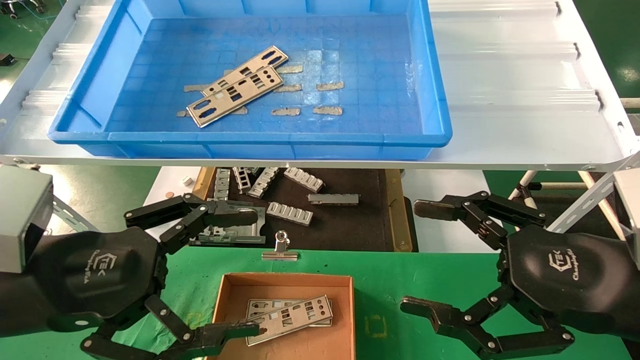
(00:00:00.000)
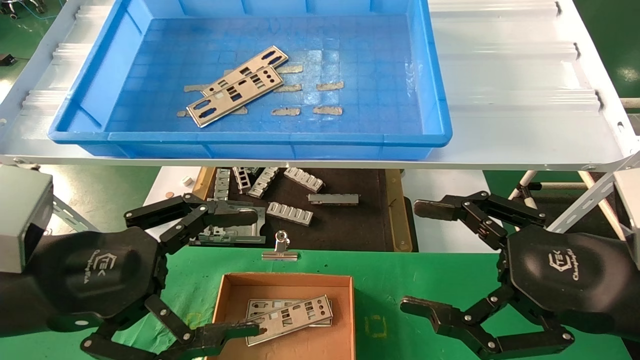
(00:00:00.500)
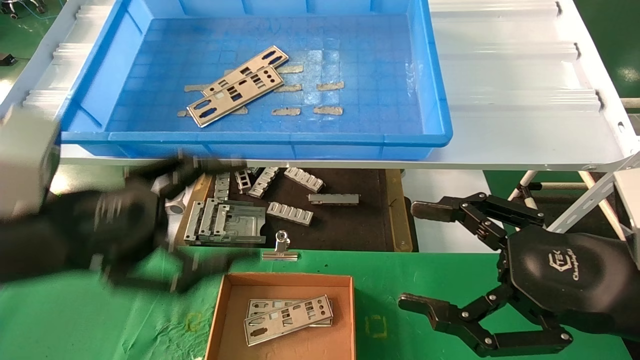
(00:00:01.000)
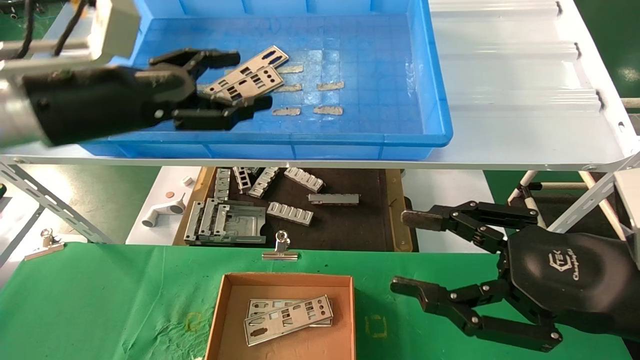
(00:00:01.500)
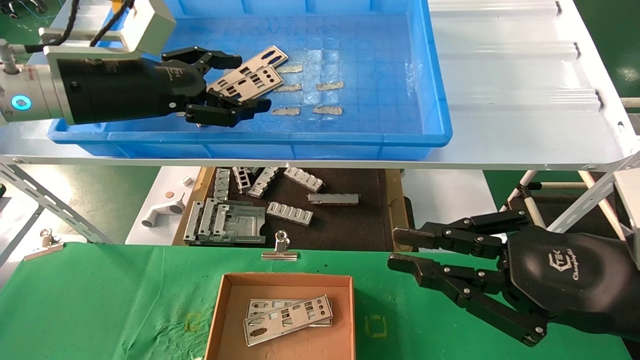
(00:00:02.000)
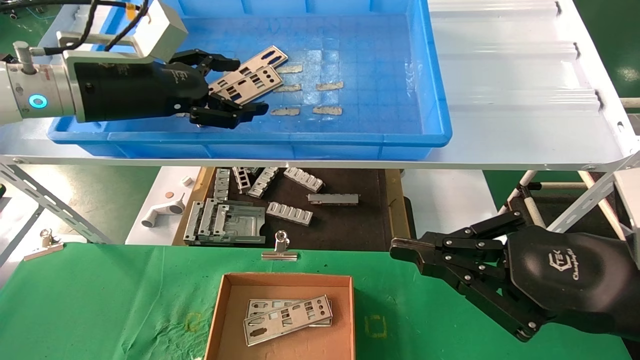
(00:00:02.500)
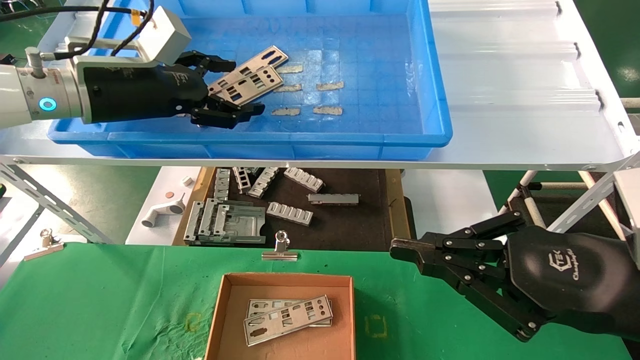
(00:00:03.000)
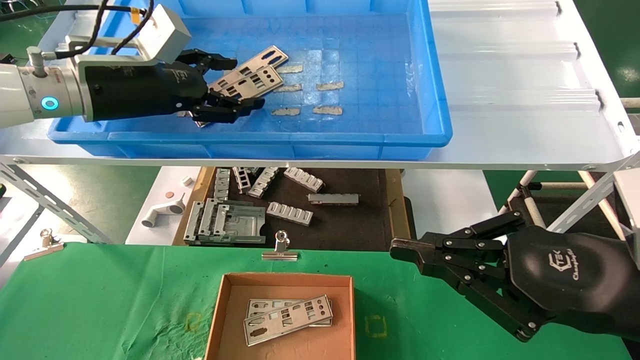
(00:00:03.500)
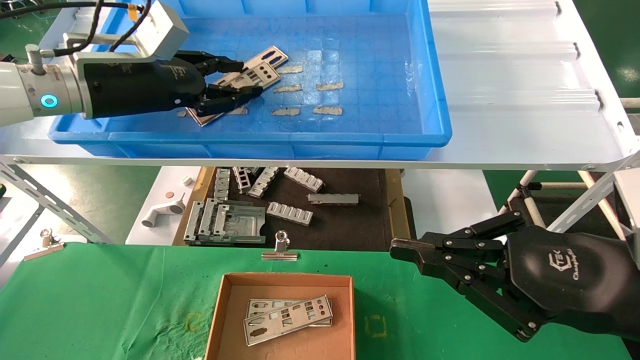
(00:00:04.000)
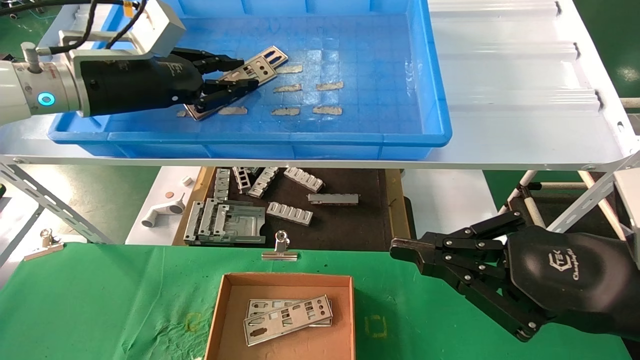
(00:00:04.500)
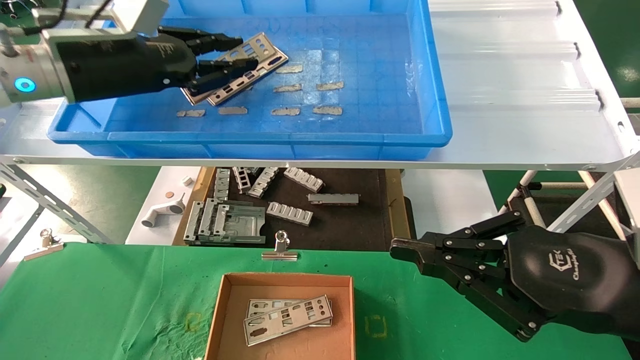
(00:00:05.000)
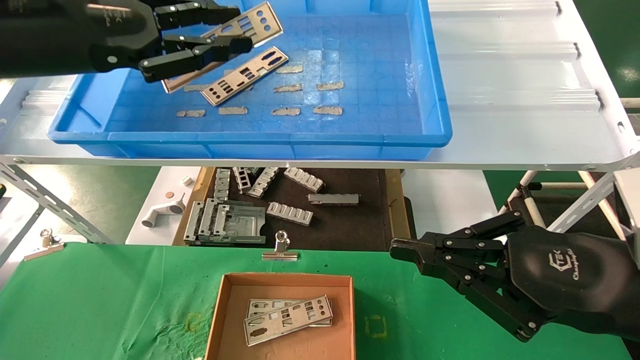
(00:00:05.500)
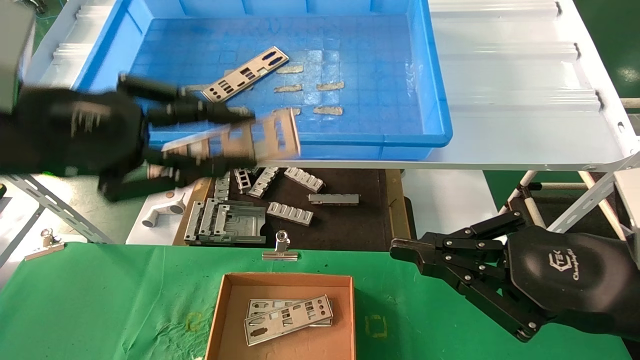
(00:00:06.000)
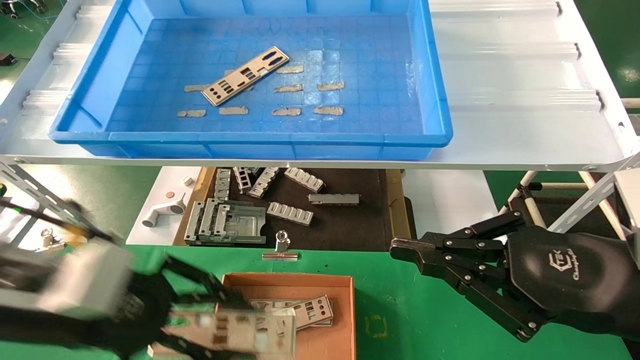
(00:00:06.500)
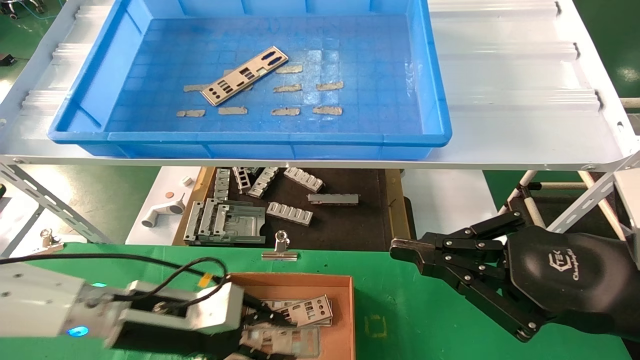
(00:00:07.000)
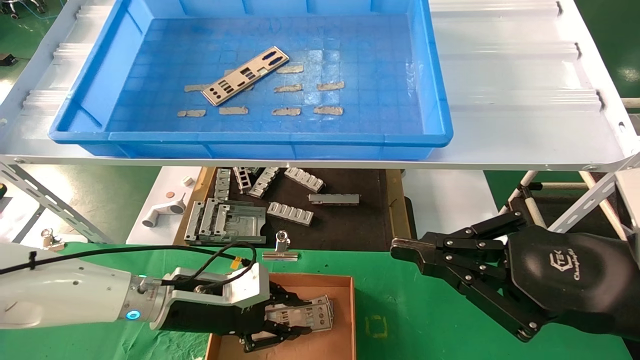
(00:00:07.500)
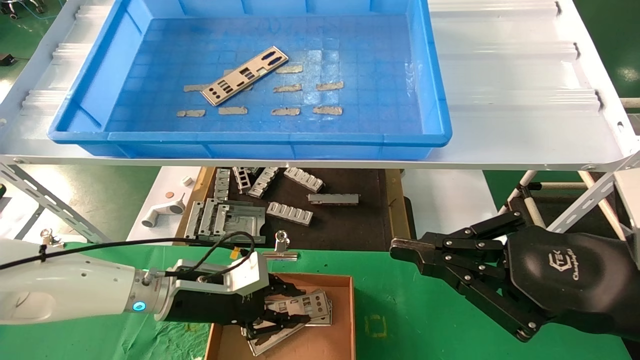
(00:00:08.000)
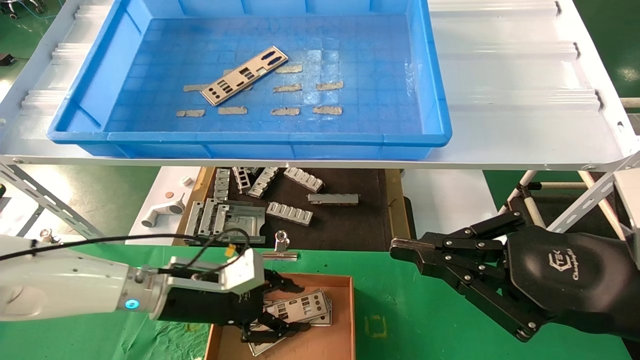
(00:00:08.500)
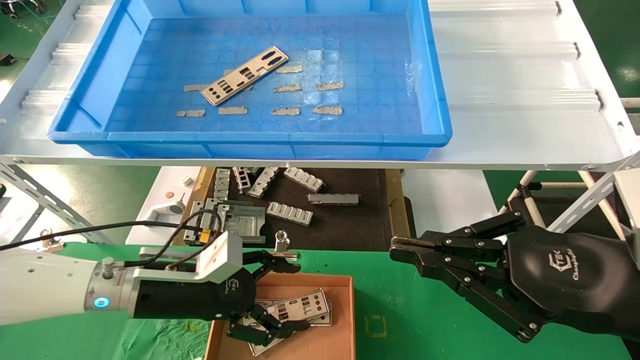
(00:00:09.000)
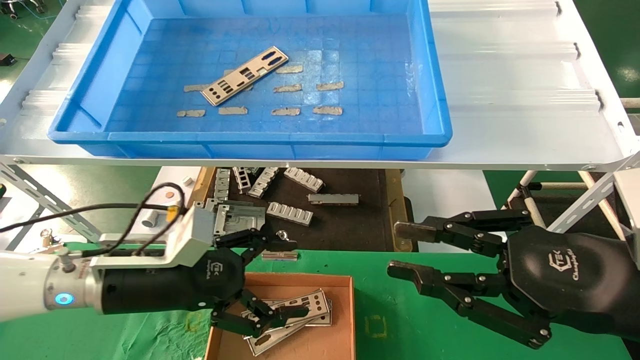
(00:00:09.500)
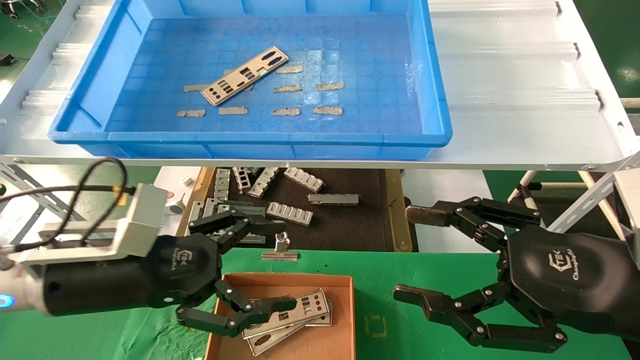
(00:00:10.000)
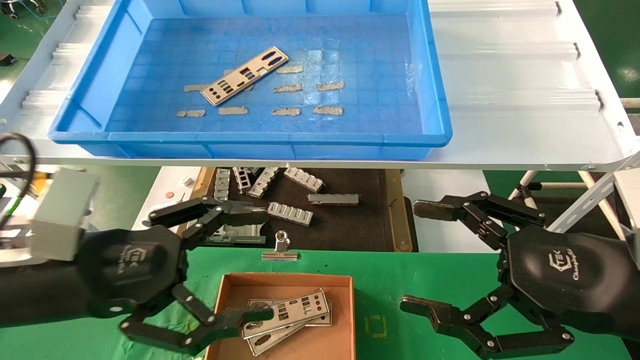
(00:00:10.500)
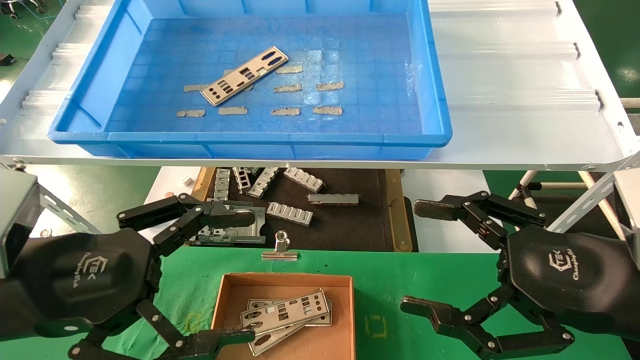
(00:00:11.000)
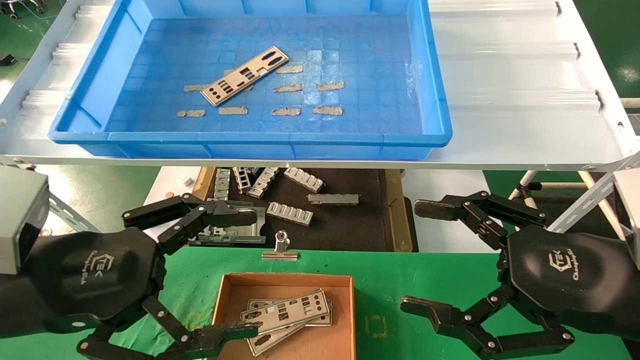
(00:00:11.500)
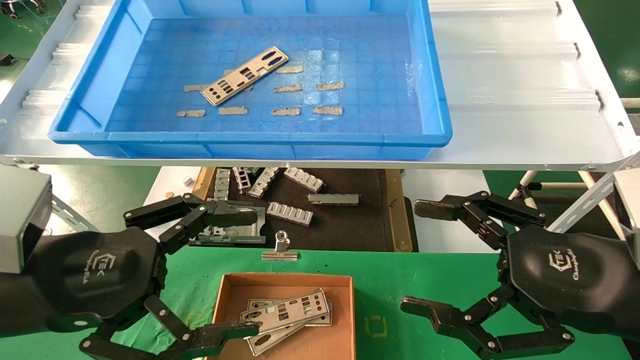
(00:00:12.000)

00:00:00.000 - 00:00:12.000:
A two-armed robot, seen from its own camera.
Task of the whole recording: pick up the parts on the tray and put them in the cardboard box.
Step, 00:00:01.500 - 00:00:04.500: Pick up the IO bracket from the container box.
Step, 00:00:05.000 - 00:00:08.000: Place the IO bracket into the ingredient slot.
00:00:00.000 - 00:00:02.000: The right gripper closes; the left gripper is displaced forward and upward by some 20 cm.
00:00:02.000 - 00:00:04.000: The left gripper closes its fingers.
00:00:04.000 - 00:00:06.000: The left gripper heads backward, covering some 15 cm, and closes.
00:00:06.000 - 00:00:08.000: The left gripper shifts about 30 cm downward and forward.
00:00:08.000 - 00:00:10.000: The right gripper opens, while the left gripper is displaced backward and upward by approximately 15 cm, and opens.
00:00:10.000 - 00:00:12.000: The left gripper travels backward by about 5 cm; the right gripper opens.

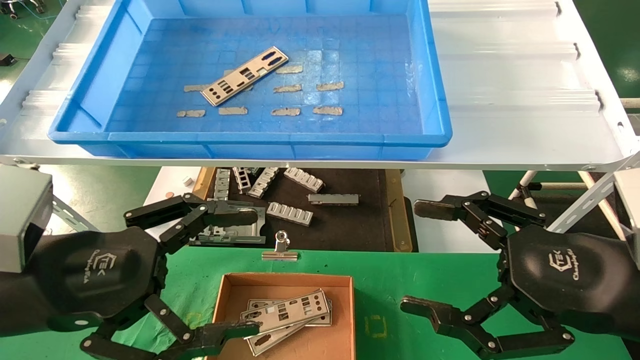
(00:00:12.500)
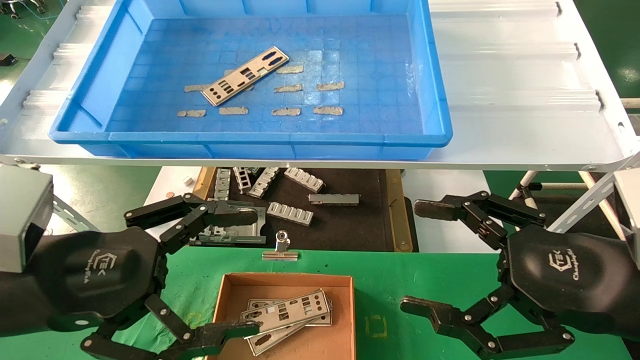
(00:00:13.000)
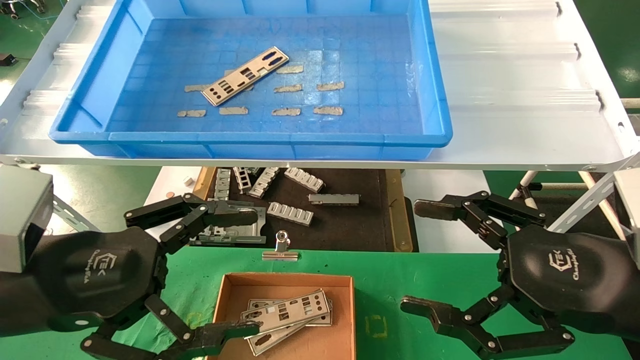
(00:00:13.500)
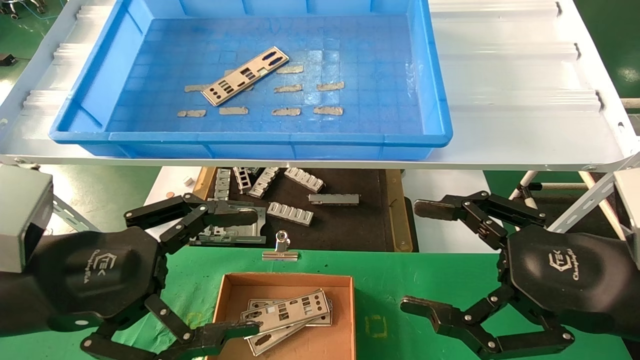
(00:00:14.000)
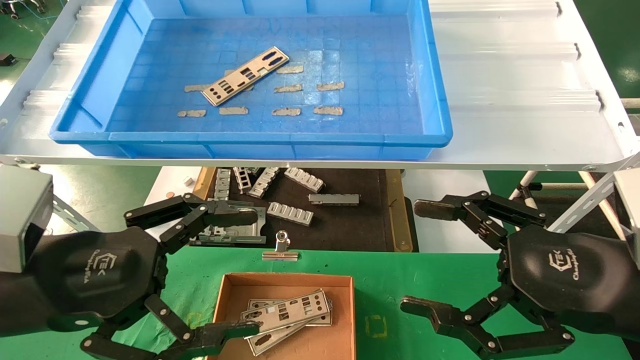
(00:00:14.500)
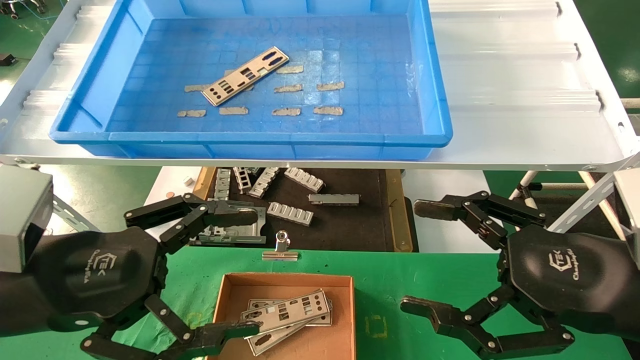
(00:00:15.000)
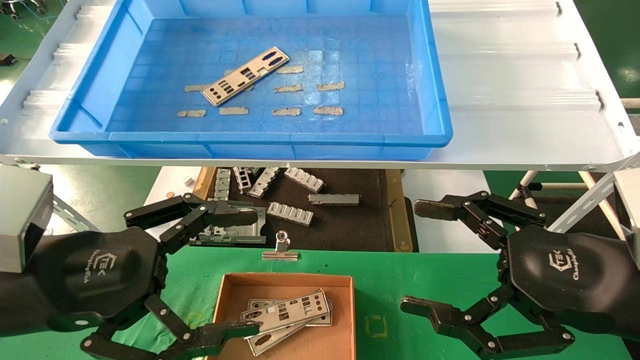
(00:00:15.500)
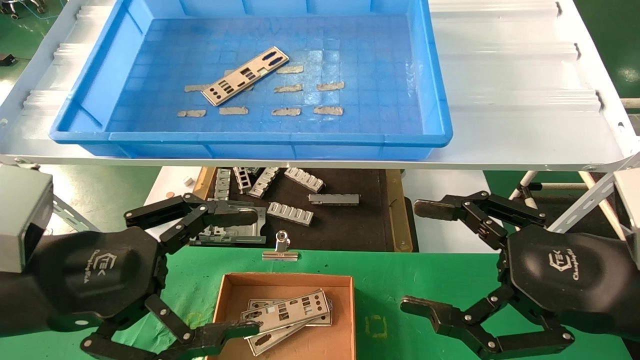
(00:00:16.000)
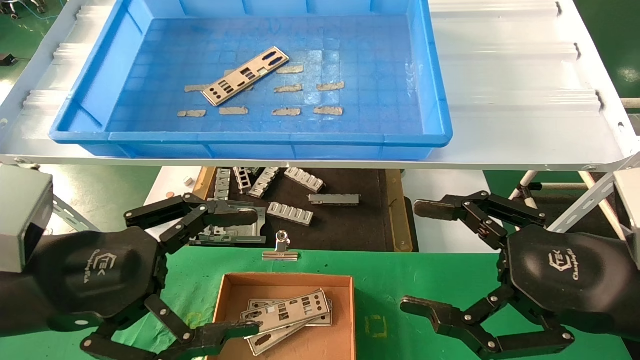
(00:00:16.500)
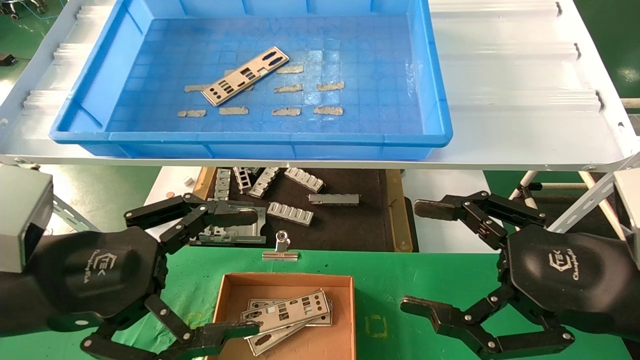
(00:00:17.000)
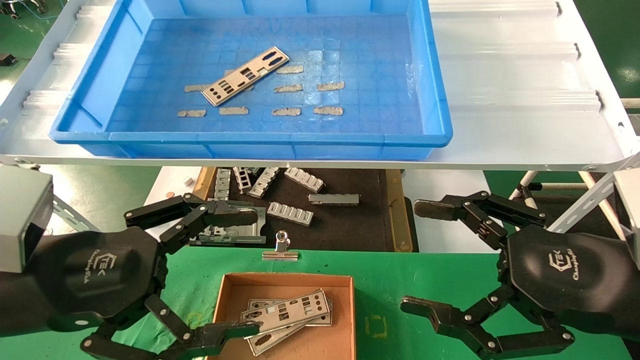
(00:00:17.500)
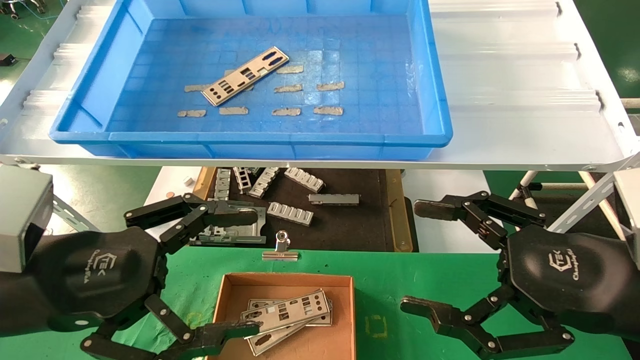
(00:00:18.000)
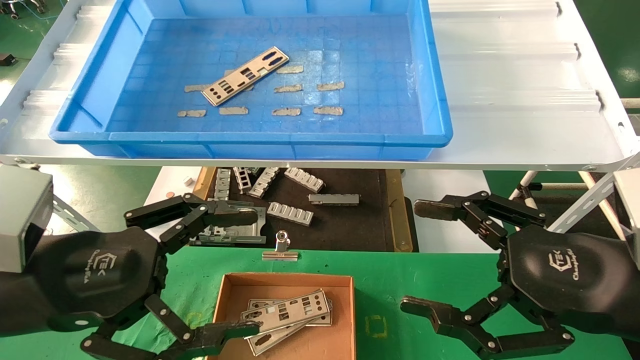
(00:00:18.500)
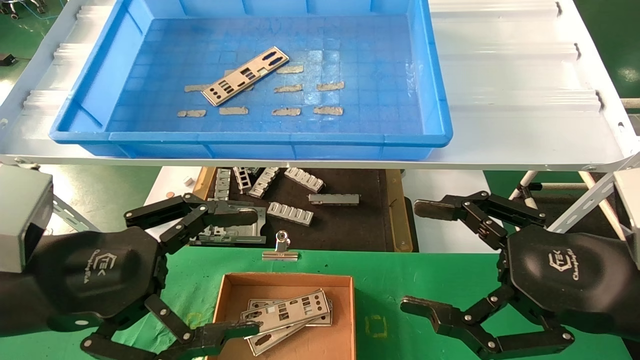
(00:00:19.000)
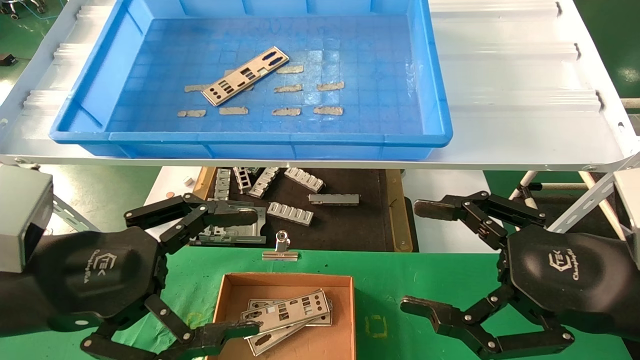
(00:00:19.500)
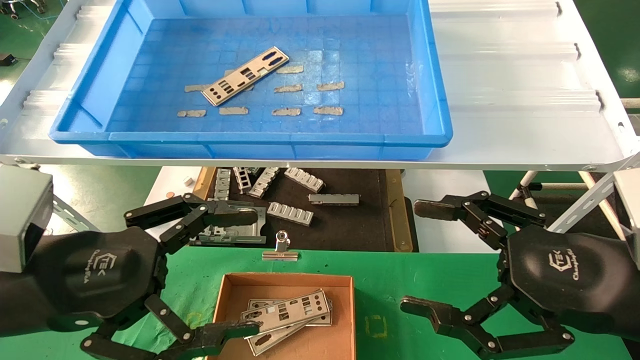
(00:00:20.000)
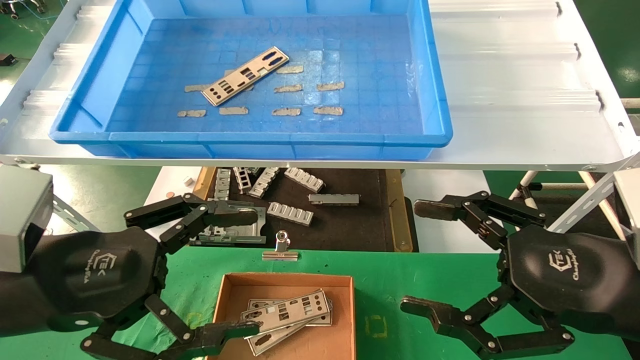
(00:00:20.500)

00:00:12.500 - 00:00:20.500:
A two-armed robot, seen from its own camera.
Task of the whole recording: pick up the parts on the tray and put them in the cardboard box.
00:00:12.500 - 00:00:20.500: The two grippers keep their place.
